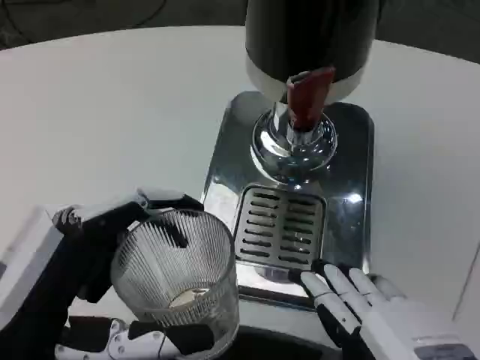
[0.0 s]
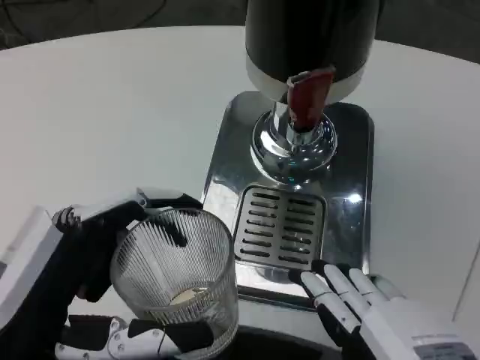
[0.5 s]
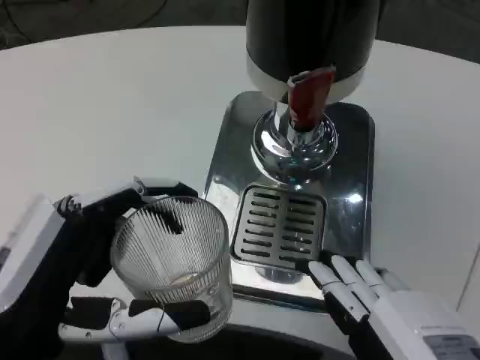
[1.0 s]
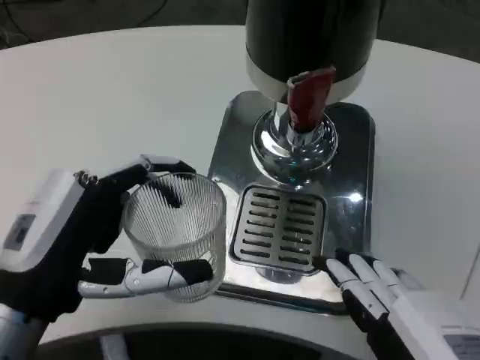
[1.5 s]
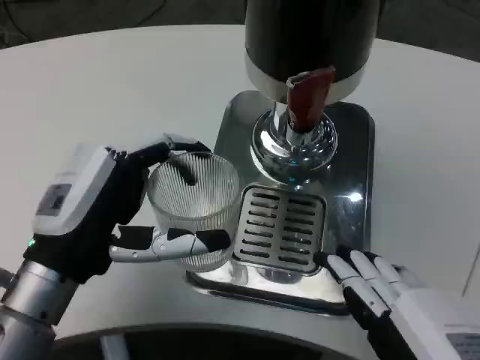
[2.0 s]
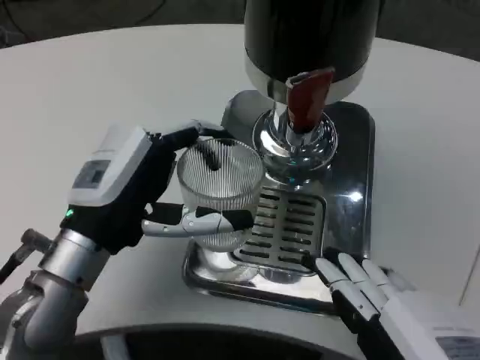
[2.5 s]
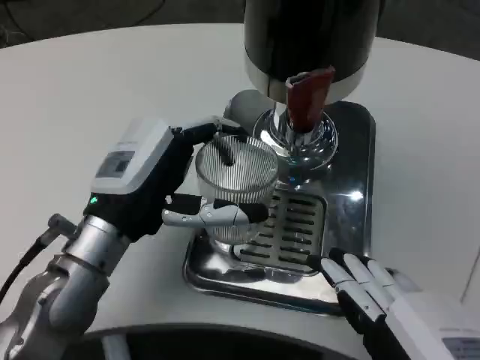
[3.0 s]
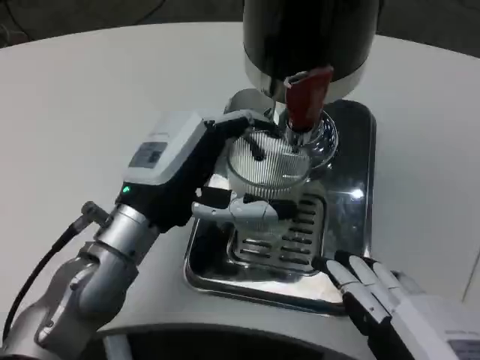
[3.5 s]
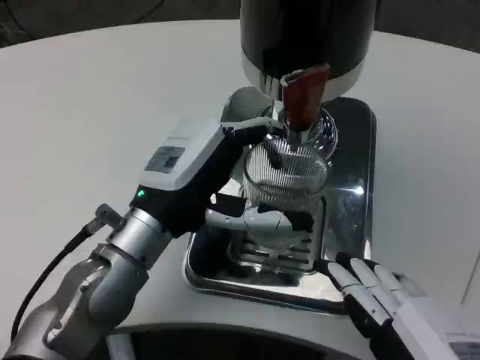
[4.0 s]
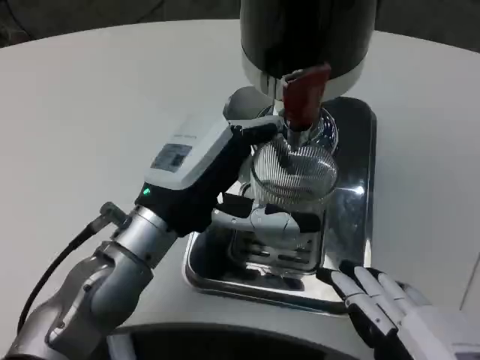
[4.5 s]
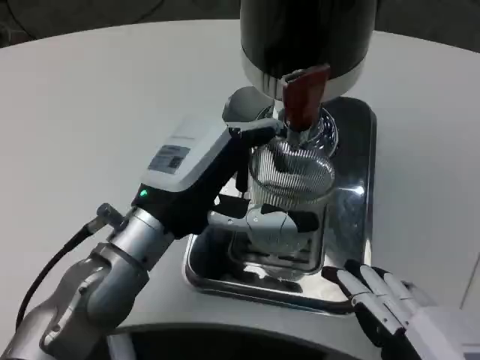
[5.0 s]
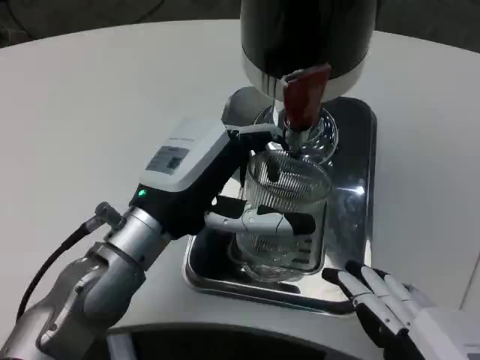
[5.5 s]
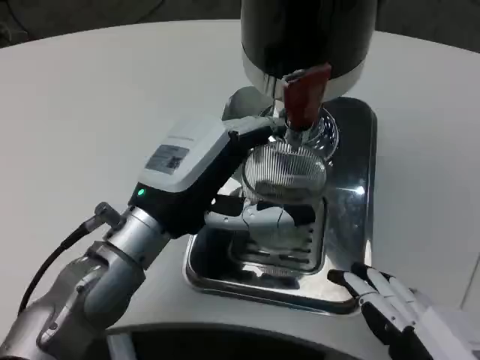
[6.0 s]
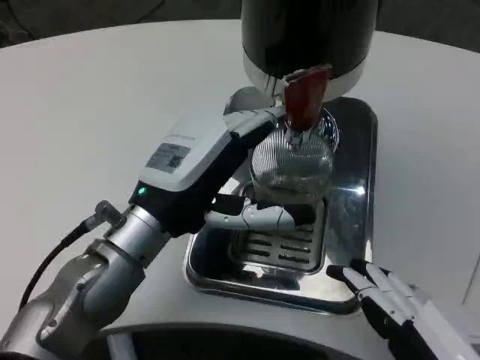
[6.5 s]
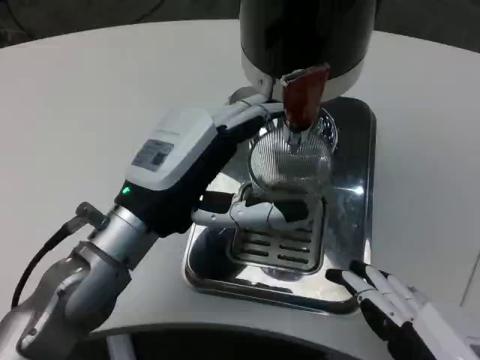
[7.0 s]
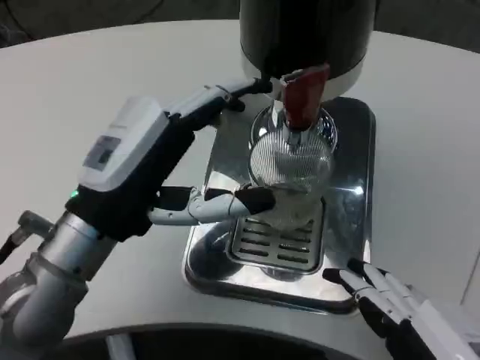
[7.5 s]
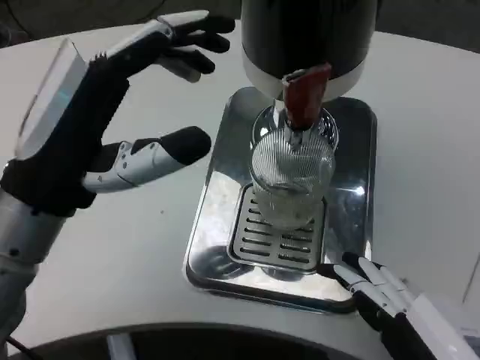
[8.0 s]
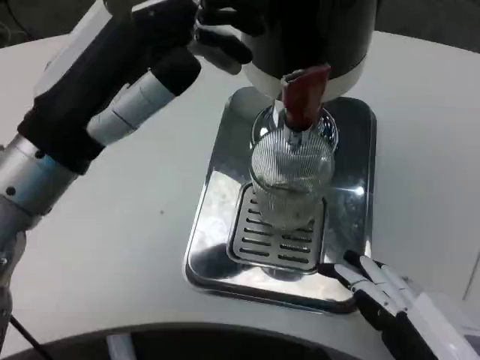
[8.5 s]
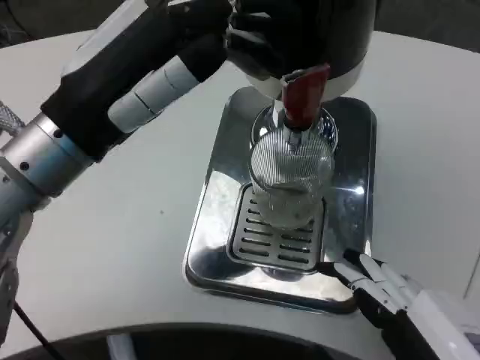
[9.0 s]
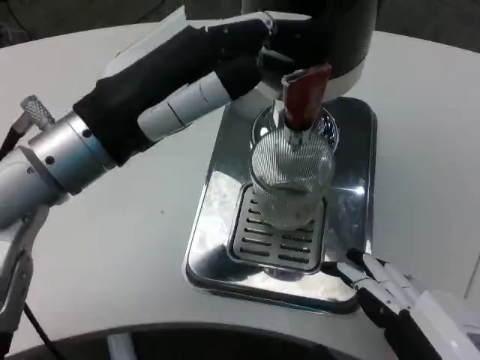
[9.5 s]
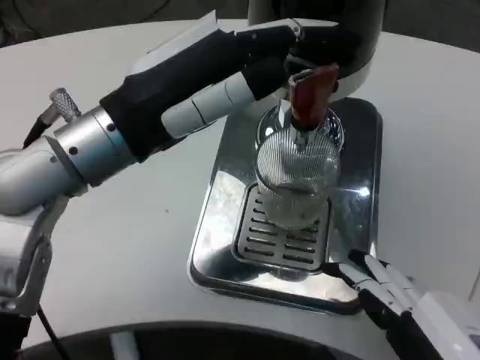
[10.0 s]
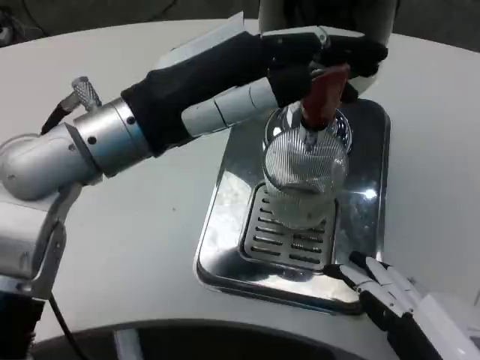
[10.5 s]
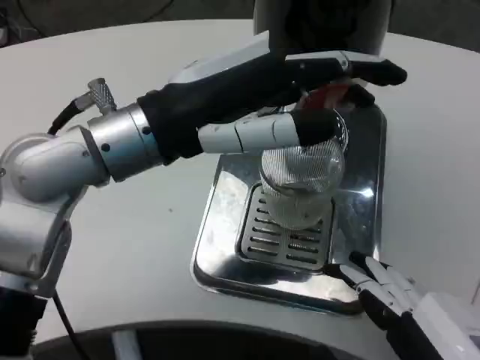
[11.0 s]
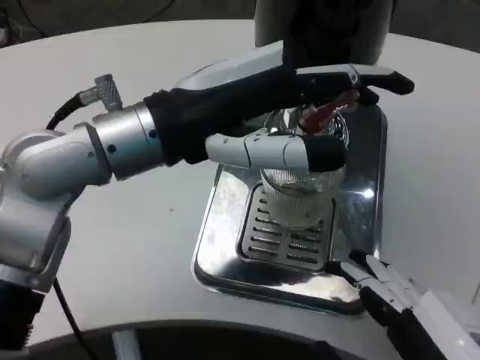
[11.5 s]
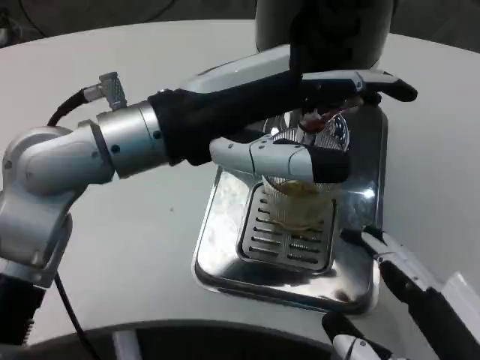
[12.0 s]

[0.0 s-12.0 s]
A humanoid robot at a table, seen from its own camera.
Task of the whole recording: Grasp the cup under the faucet to collect the drink, then remove the cup.
0.0 to 2.0 s: The left hand shifts about 10 cm forward.
2.0 to 4.0 s: The left hand is displaced to the right and forward by some 10 cm.
4.0 to 6.0 s: The hands stay close to where they were, moving slightly.
6.0 to 8.0 s: The left hand is displaced upward, backward and to the left by some 10 cm.
8.0 to 10.0 s: The left hand goes about 5 cm upward.

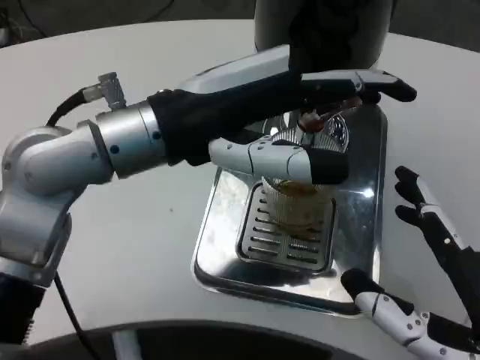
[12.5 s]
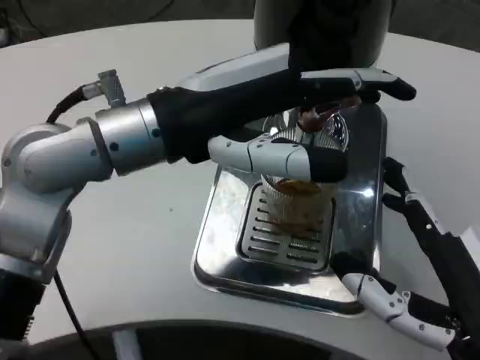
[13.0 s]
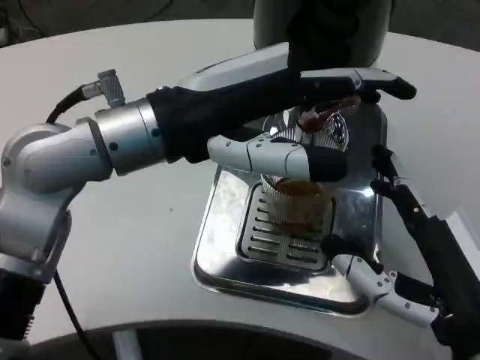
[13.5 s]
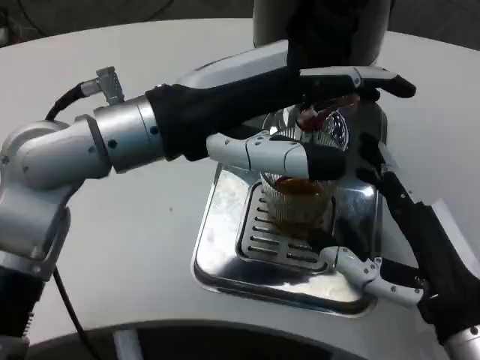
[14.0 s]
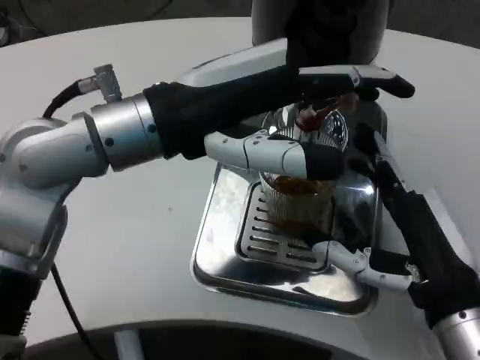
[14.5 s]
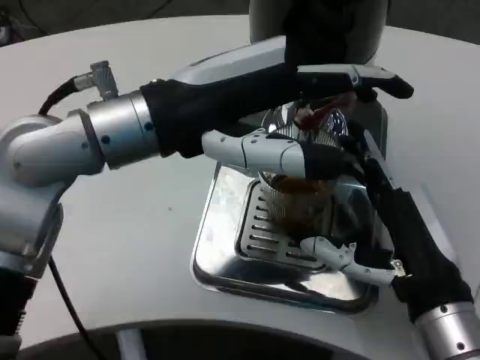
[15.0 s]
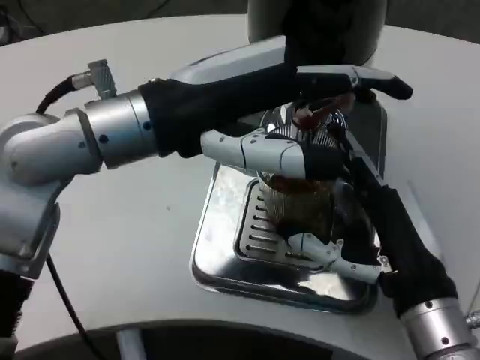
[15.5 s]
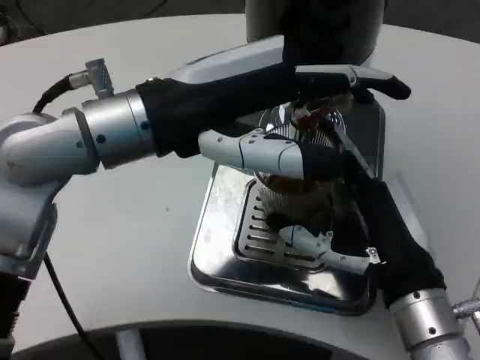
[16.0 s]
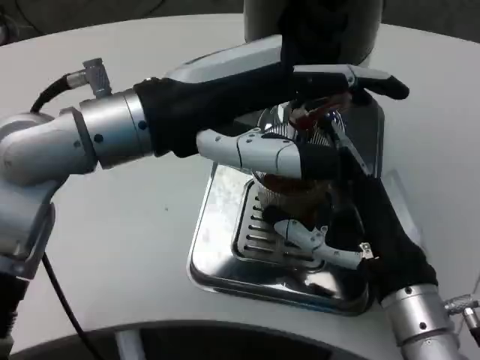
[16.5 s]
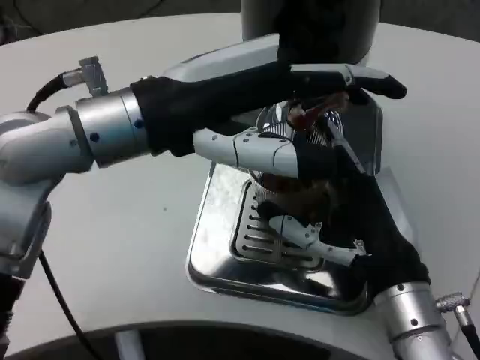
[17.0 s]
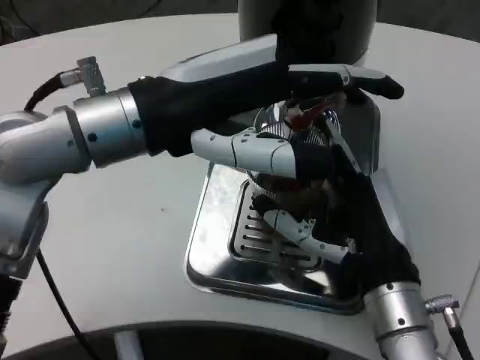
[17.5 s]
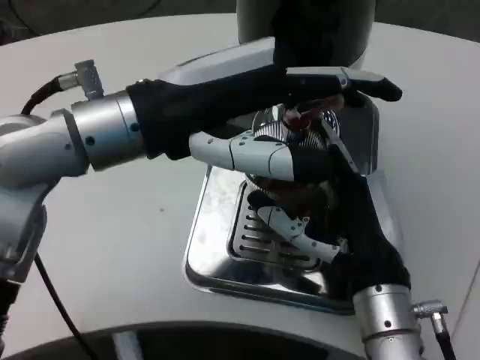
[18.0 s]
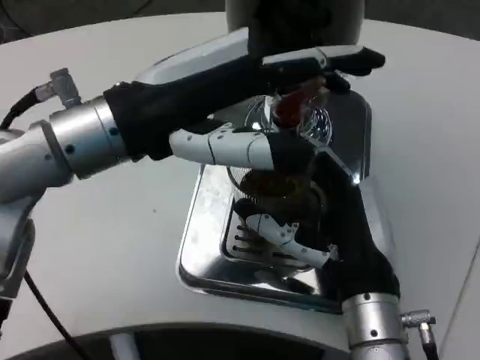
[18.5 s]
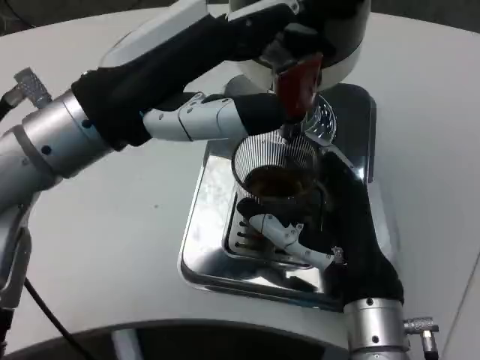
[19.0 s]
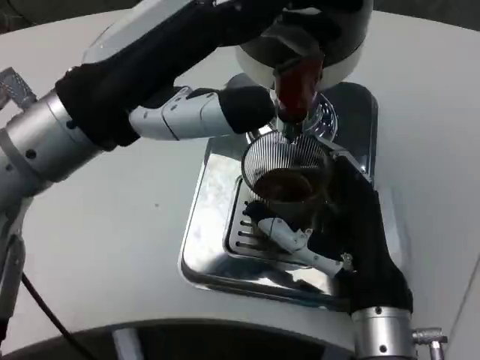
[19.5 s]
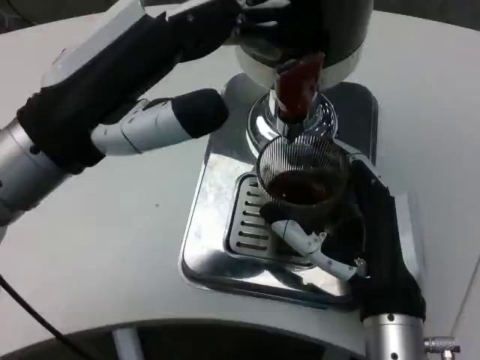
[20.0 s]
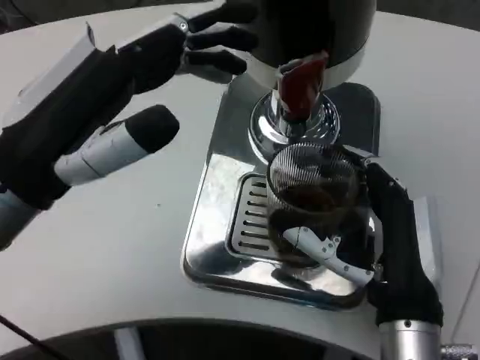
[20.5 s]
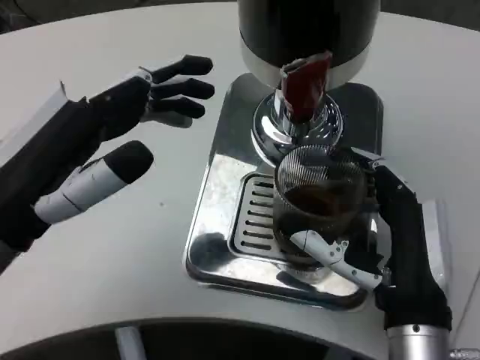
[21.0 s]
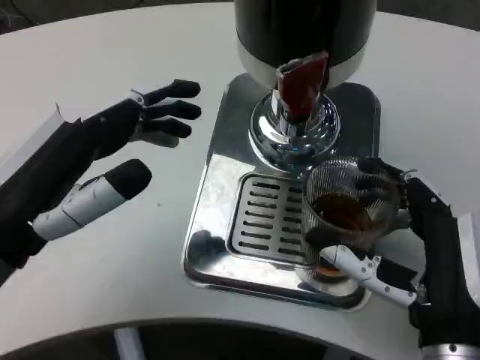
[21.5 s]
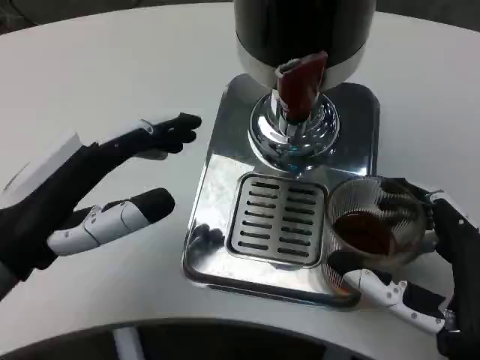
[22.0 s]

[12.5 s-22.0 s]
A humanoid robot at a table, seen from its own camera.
Task of the whole recording: Grasp the cup under the faucet to collect the drink, then remove the cup.
12.5 to 14.5 s: The right hand shifts some 10 cm forward.
18.0 to 20.0 s: The left hand shifts by approximately 5 cm.
20.0 to 22.0 s: The right hand is displaced to the right by about 5 cm. Meanwhile the left hand shifts some 10 cm downward.

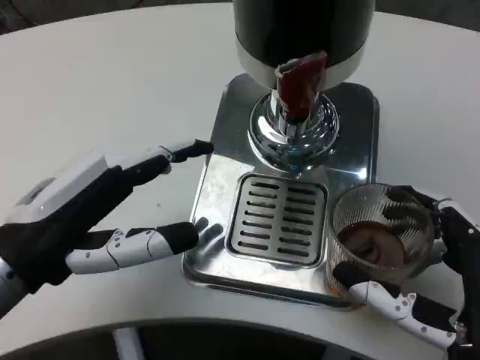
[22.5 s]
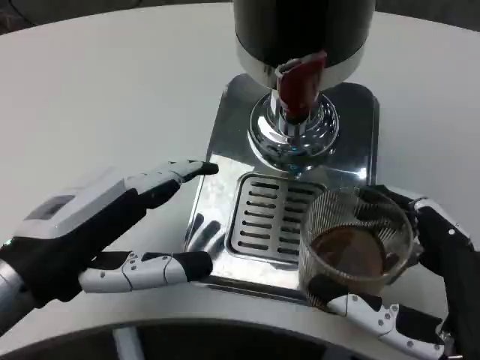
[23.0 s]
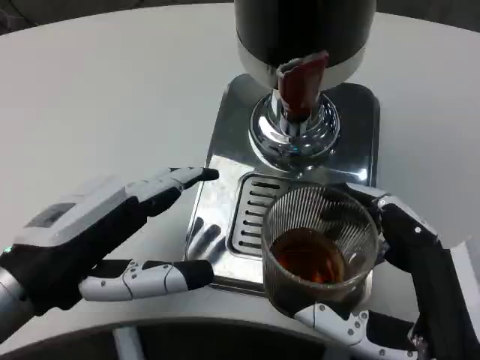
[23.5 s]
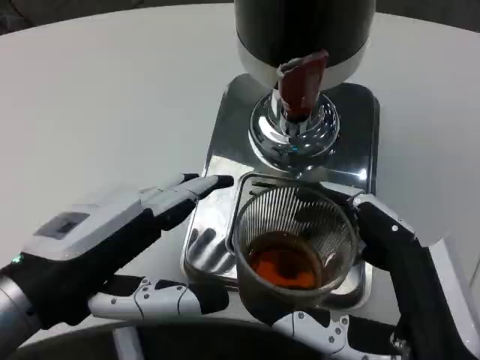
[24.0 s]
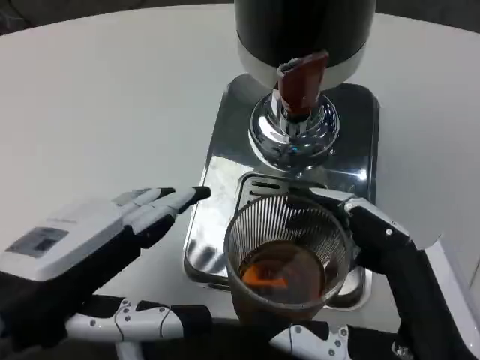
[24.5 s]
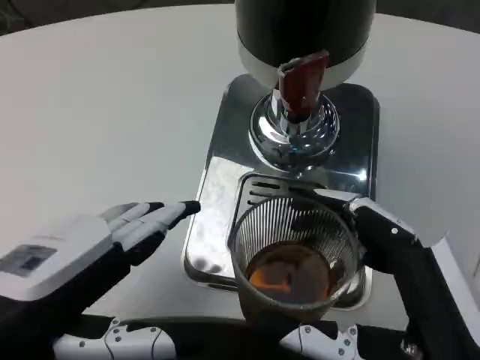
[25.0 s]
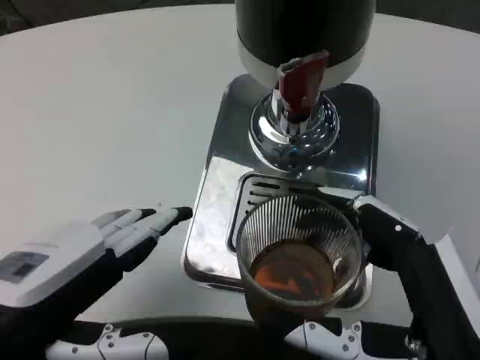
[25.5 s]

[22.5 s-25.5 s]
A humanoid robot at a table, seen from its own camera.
Task of the whole recording: Grasp the cup under the faucet to collect the drink, then remove the cup.
22.5 to 24.0 s: The right hand changes place by approximately 5 cm.

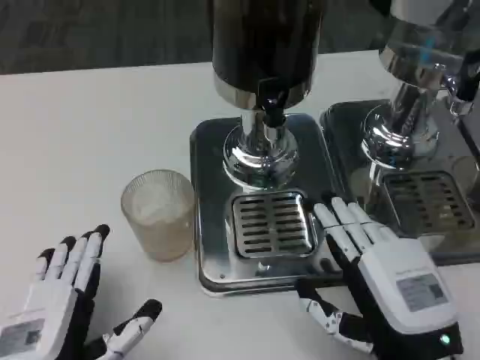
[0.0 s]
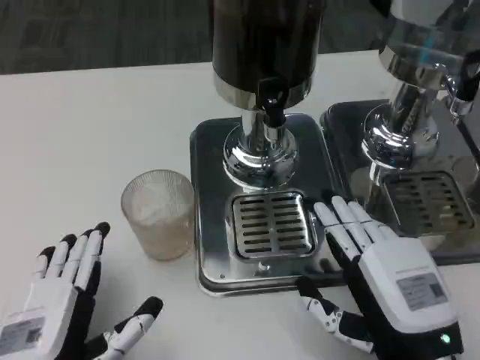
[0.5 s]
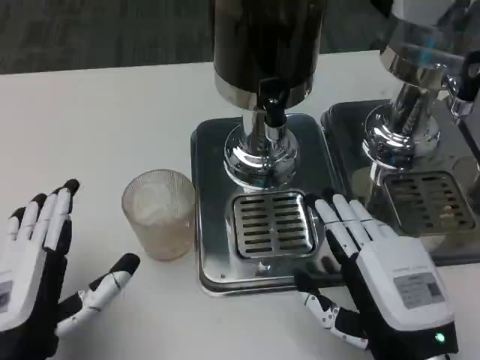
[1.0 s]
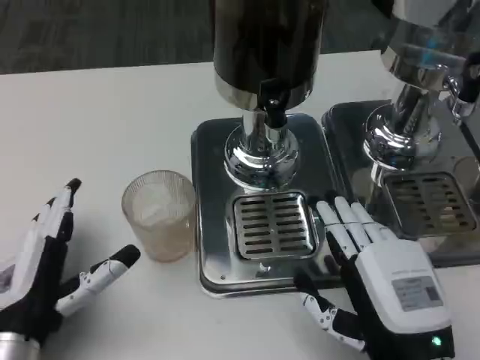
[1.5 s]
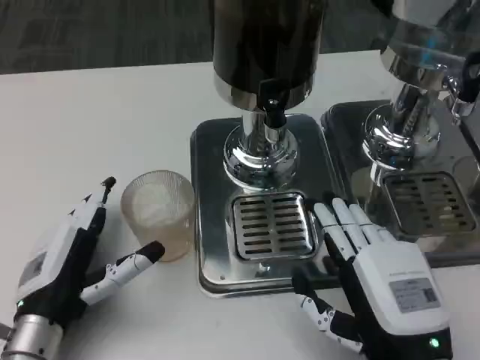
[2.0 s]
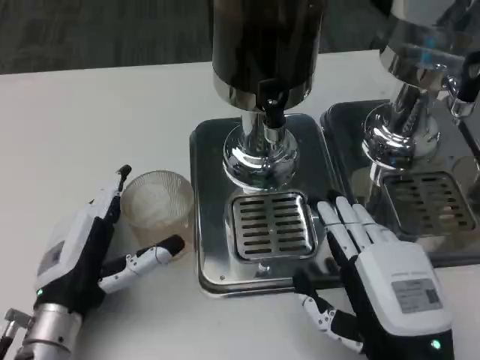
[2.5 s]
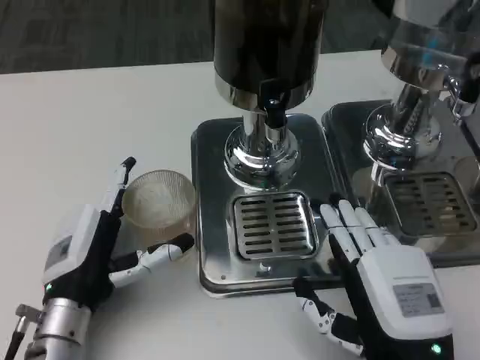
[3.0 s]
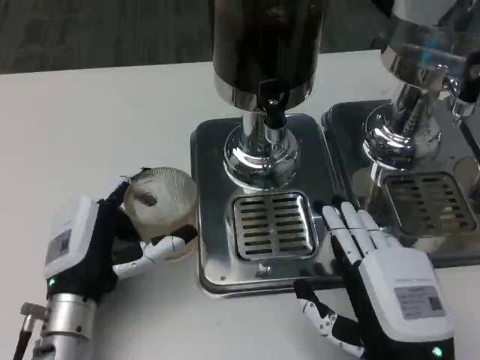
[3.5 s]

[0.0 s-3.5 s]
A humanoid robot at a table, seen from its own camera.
Task of the whole recording: Grasp the cup under the faucet to collect the drink, then remove the cup.
0.0 to 2.0 s: The left hand goes some 10 cm forward.
2.0 to 3.5 s: The hands make only small movements.
